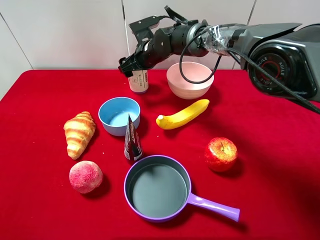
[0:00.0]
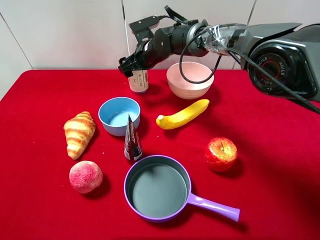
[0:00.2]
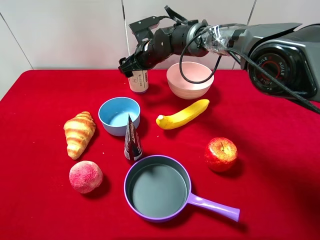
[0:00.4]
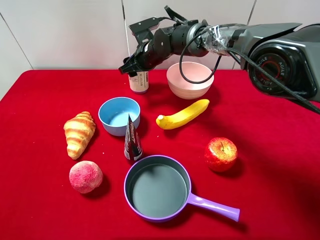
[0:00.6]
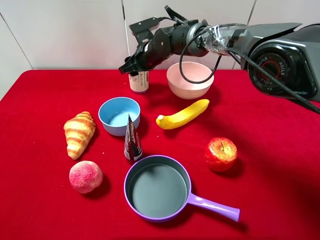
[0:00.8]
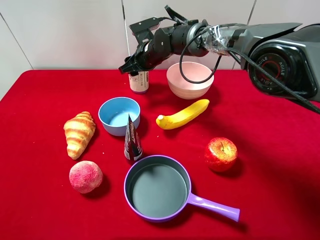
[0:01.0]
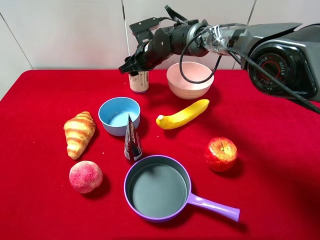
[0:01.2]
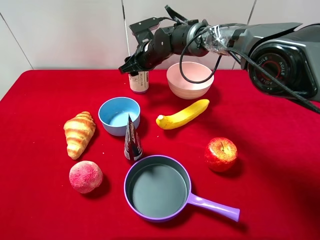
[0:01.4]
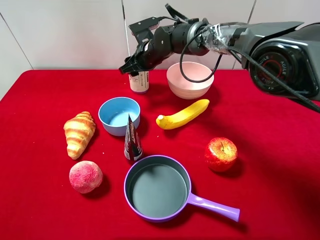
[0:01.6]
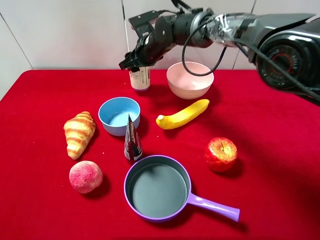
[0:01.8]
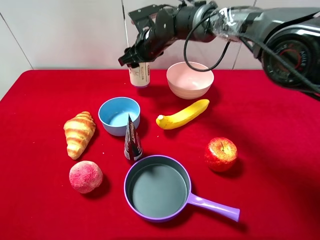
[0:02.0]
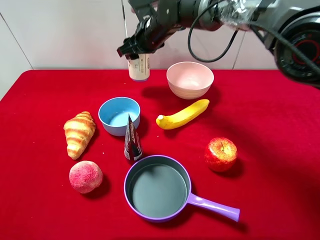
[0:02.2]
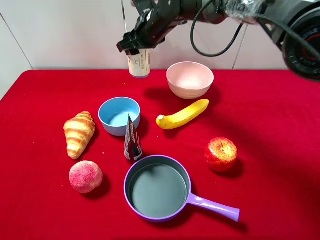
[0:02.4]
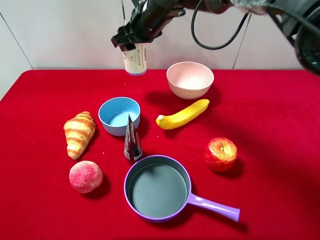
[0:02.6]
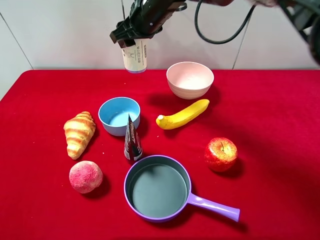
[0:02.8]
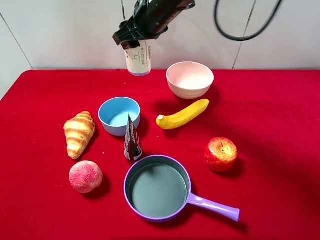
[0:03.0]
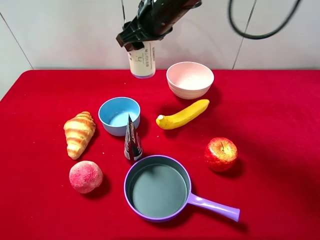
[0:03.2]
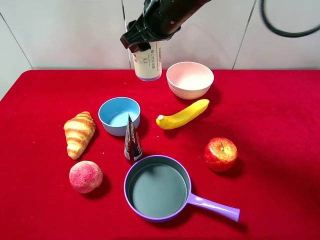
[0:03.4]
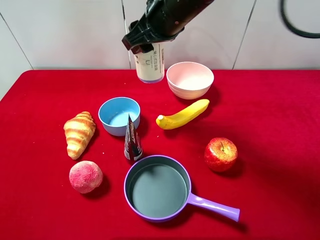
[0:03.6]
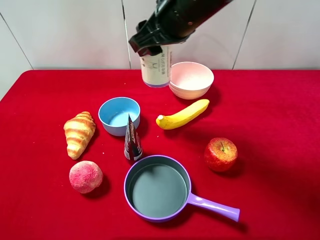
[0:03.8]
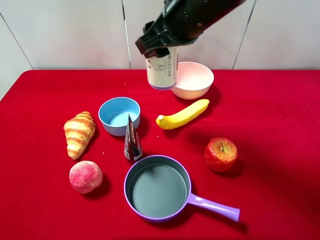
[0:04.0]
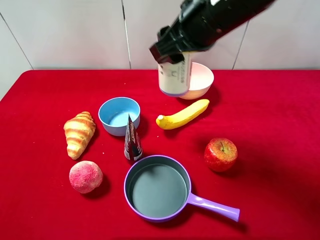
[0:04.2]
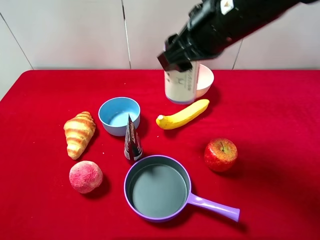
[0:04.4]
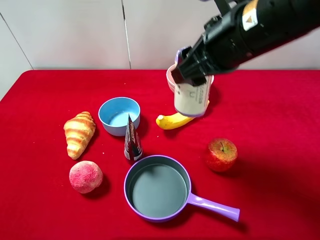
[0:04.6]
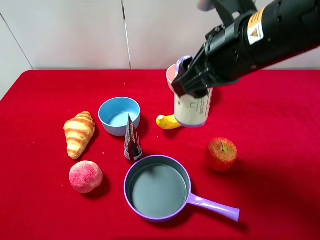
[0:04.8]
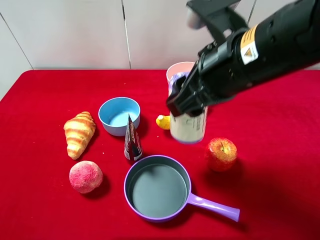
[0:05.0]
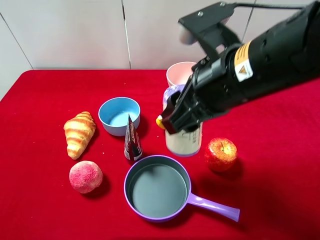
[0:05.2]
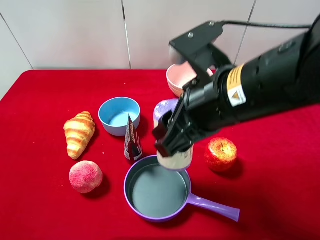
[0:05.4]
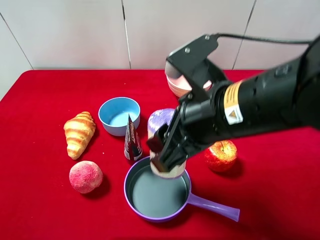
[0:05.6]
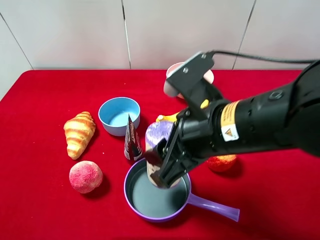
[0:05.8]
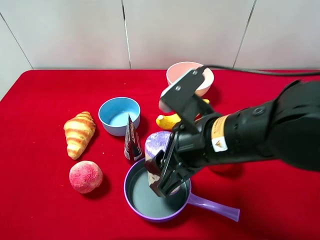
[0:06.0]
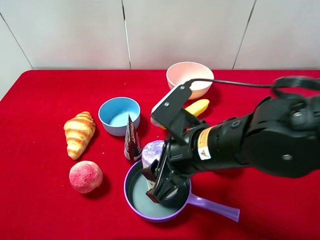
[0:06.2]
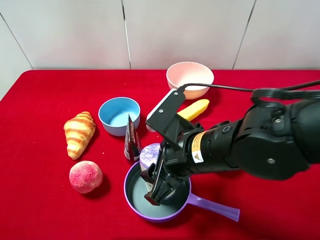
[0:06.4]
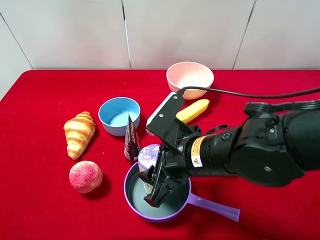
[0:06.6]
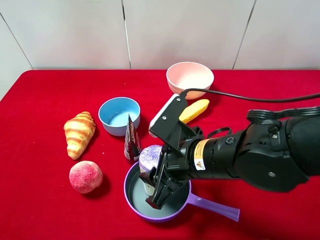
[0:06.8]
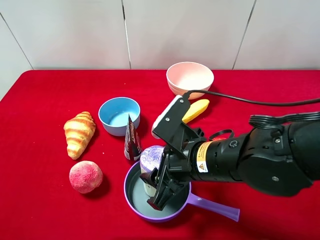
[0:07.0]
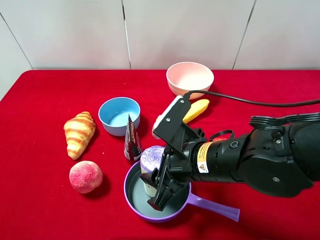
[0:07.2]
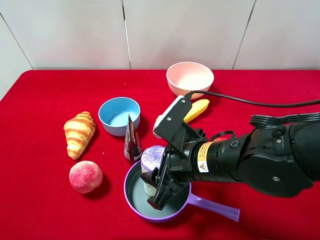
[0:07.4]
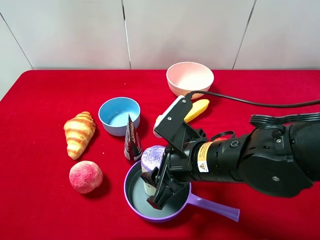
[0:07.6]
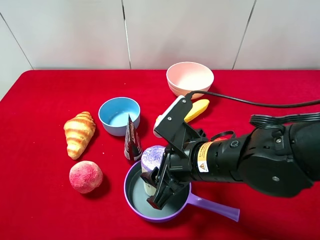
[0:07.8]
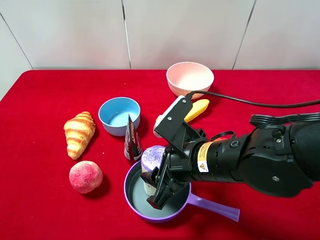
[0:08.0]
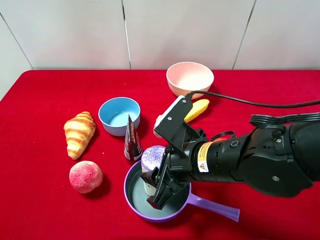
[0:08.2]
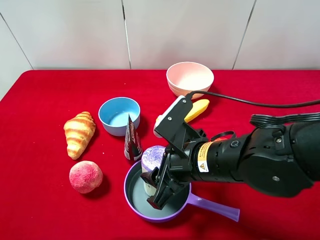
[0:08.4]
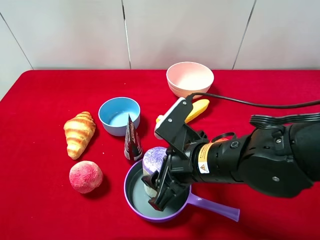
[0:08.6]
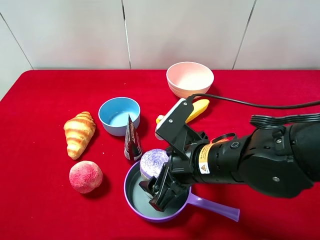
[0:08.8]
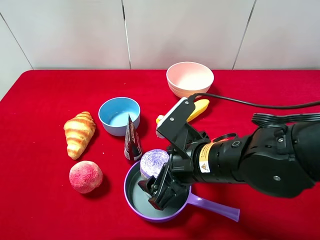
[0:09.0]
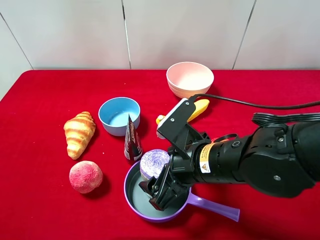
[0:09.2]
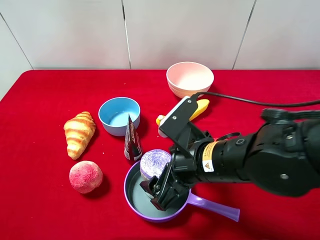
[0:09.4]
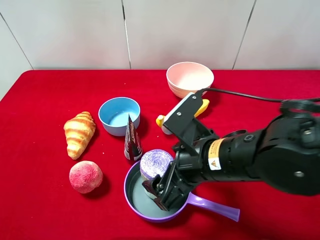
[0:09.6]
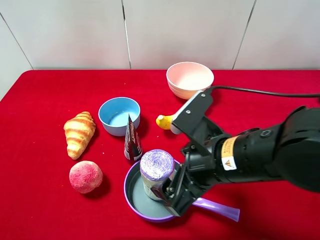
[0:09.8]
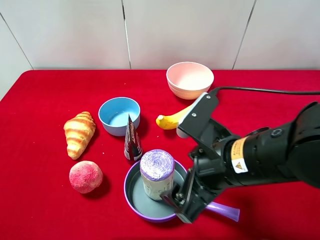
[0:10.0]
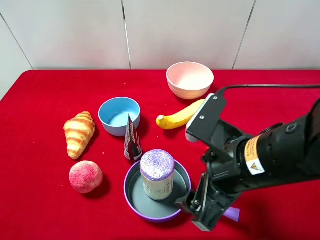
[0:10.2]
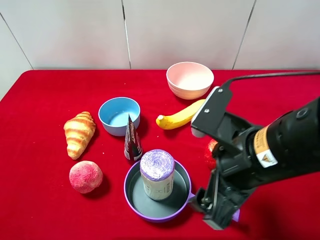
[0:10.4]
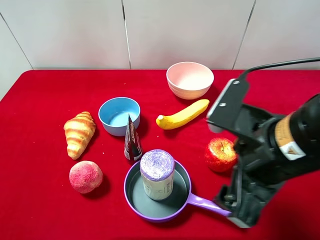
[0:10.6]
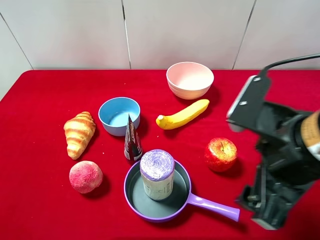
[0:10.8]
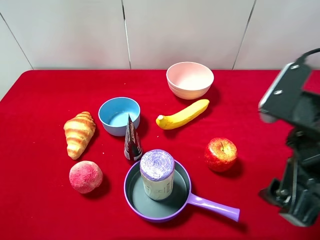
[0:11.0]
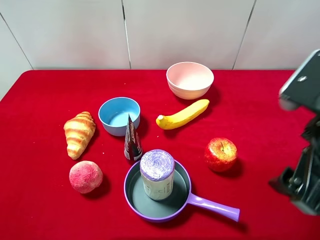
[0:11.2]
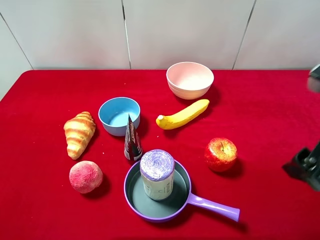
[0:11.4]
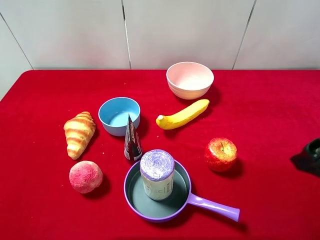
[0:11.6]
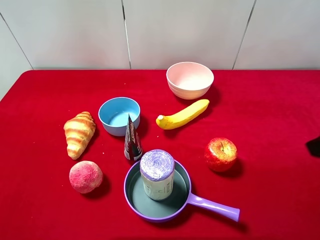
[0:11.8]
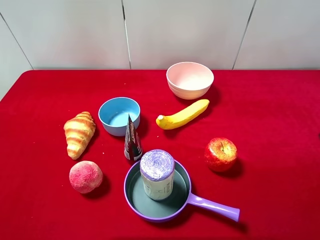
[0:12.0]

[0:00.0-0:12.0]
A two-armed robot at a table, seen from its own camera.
Task of the whole recording: pick up an item with a gripper and place it in a random container on the desktop.
0:00.0 to 0:01.6: The right gripper closes up.
0:01.6 to 0:03.0: The right gripper travels upward and backward by about 15 cm.
0:03.0 to 0:04.4: The right gripper travels backward and to the right by approximately 15 cm.
0:04.4 to 0:06.0: The right gripper shifts roughly 15 cm downward and backward.
0:06.0 to 0:07.6: The right gripper shifts roughly 5 cm downward.
0:07.6 to 0:09.0: The right gripper opens.
0:09.0 to 0:10.4: The right gripper moves upward and to the right, roughly 10 cm.
0:10.4 to 0:12.0: The right gripper is displaced to the right and upward by some 15 cm.

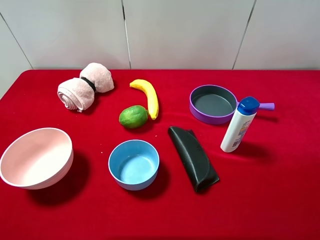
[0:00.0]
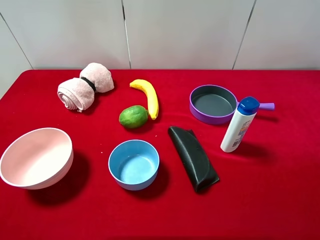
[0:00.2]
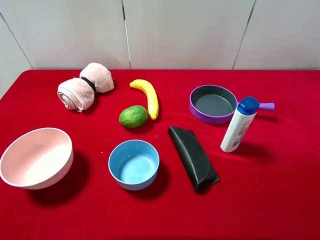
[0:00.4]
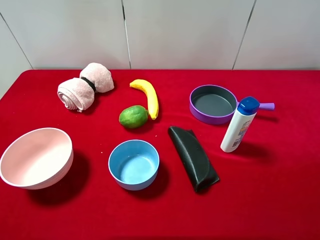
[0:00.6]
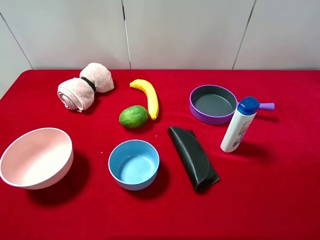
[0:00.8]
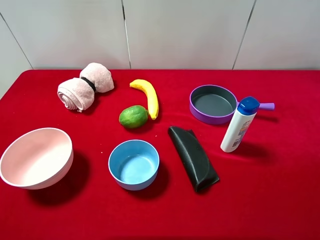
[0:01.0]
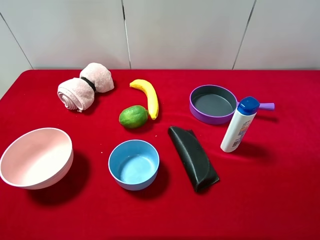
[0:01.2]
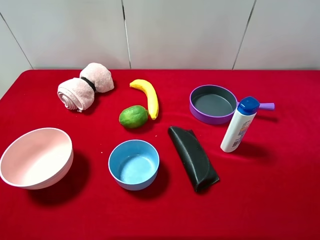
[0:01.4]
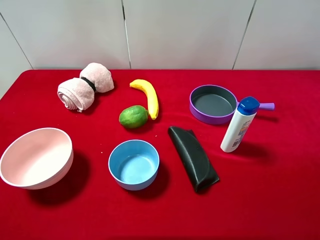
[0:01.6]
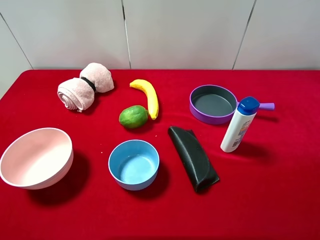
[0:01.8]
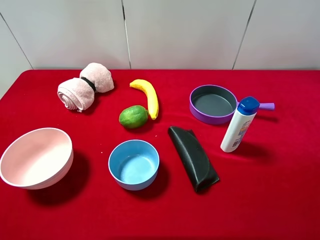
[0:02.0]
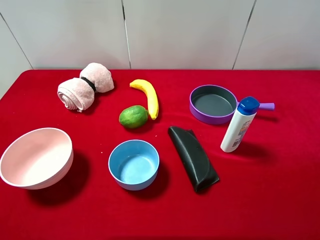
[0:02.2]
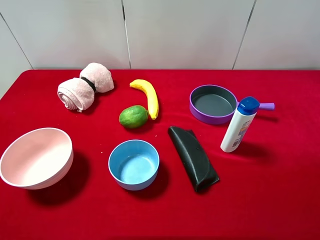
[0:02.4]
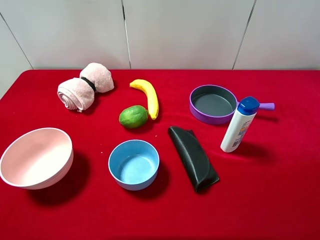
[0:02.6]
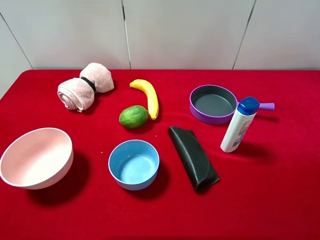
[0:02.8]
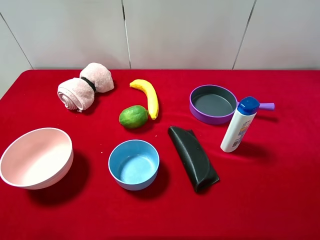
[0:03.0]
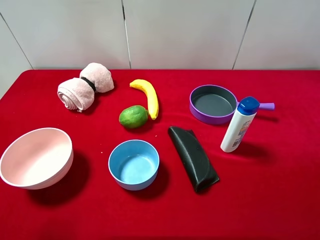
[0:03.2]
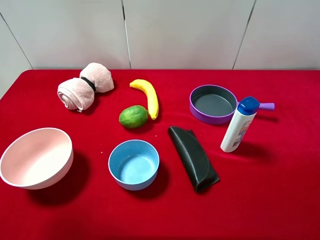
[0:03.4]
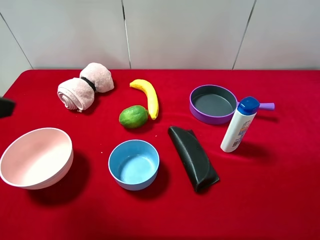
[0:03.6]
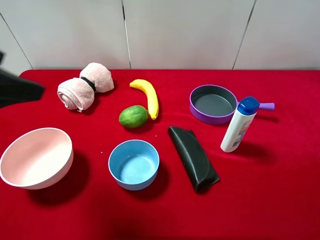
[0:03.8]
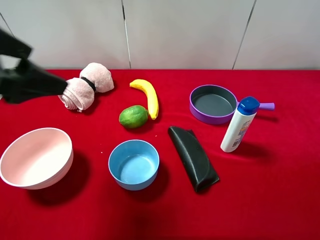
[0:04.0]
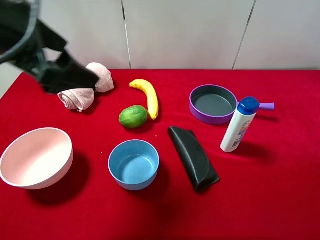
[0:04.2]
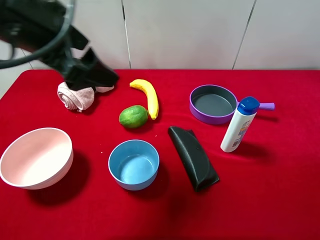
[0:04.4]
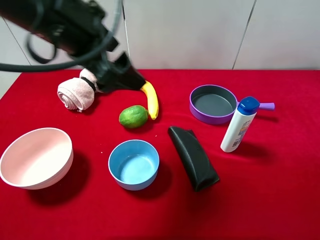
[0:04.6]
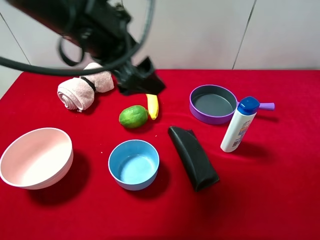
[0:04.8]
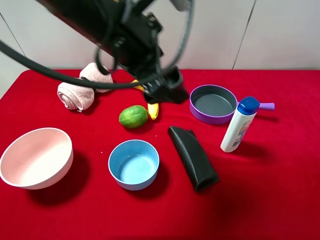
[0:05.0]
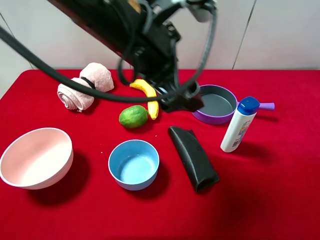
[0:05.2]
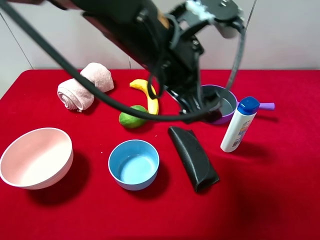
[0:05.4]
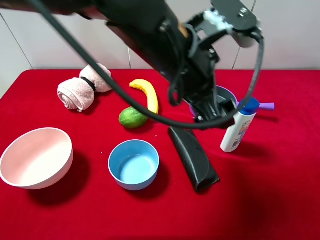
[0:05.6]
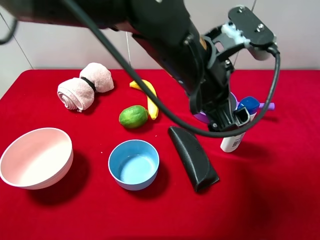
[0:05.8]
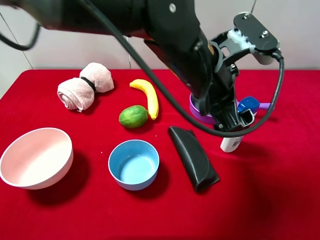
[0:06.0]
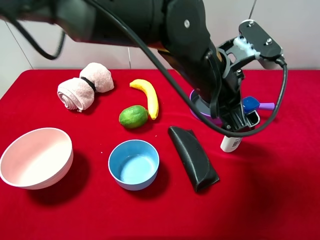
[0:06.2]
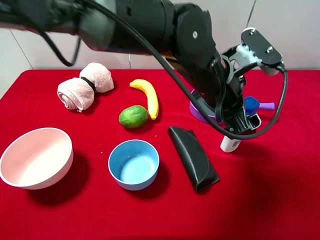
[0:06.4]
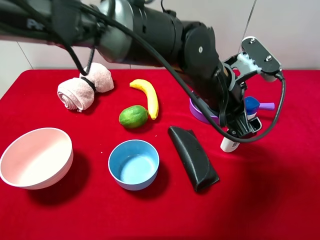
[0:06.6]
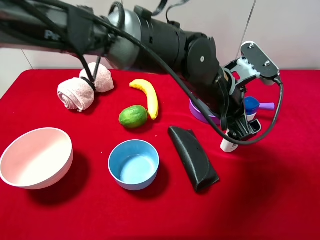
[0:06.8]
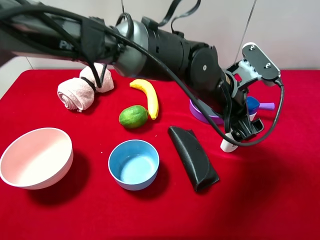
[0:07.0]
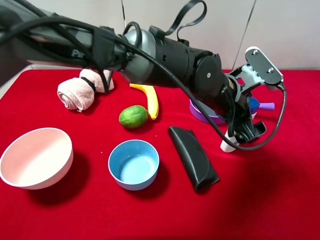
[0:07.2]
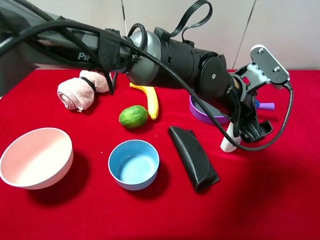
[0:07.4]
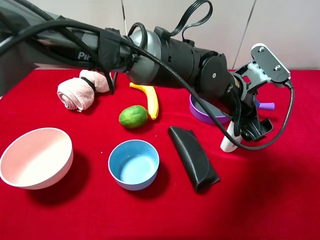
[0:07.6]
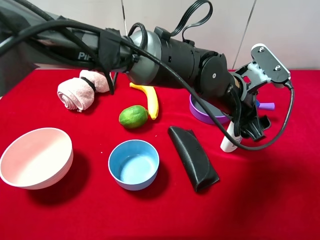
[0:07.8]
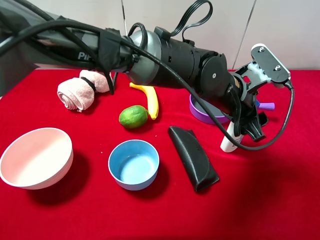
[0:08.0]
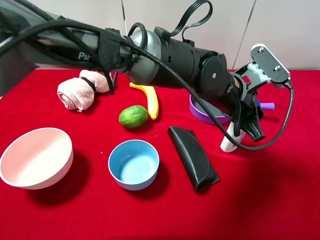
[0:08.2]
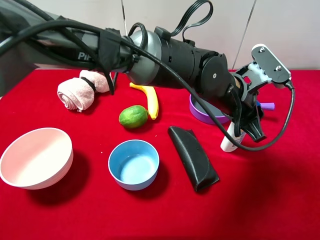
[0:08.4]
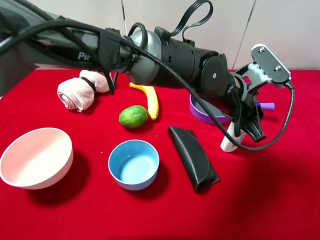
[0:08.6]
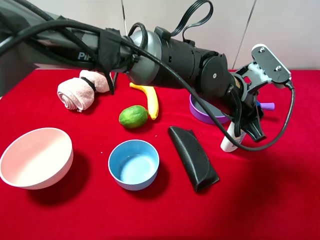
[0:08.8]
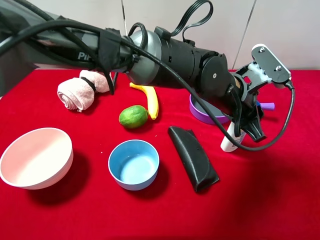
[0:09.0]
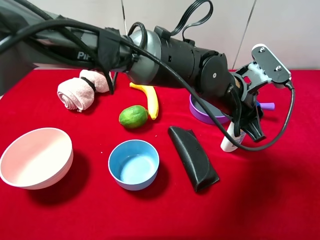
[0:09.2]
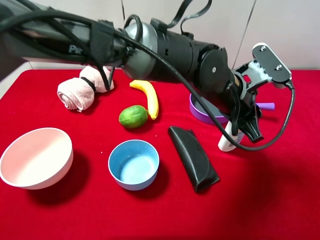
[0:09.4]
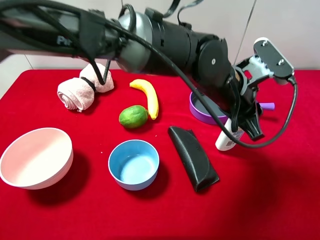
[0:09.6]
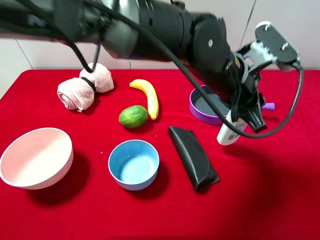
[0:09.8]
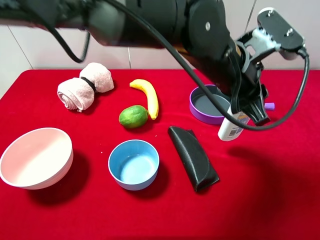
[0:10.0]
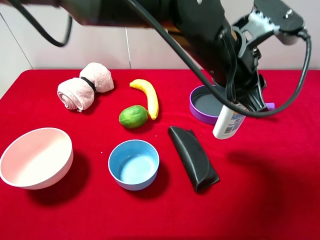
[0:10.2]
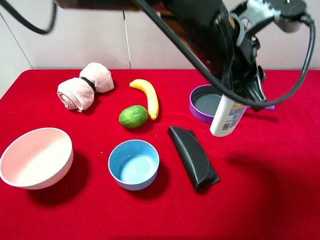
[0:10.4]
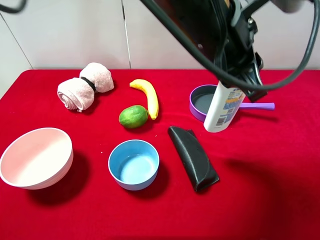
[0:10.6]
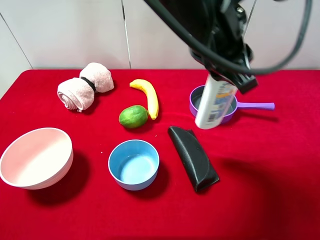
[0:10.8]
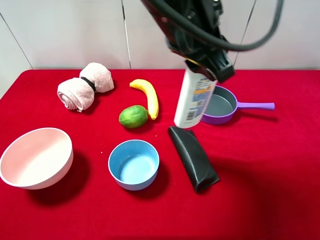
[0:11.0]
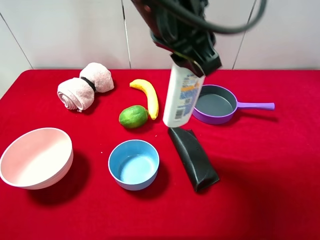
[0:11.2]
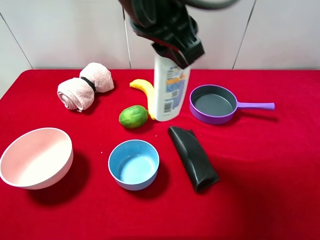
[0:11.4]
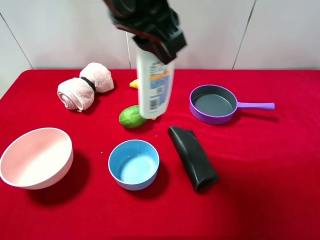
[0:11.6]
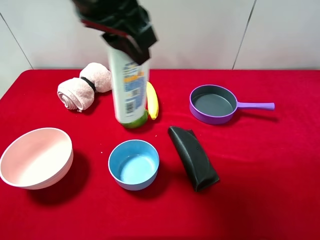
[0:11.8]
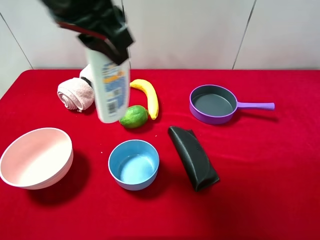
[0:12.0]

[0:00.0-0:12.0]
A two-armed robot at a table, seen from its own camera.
Task of the whole recording: pick up an item with a gripper and place it in a random container on the desktop.
0:00.0 to 0:01.6: Both grippers stay put.
0:03.0 to 0:04.4: The left gripper heads forward and to the right, covering approximately 25 cm.
0:04.4 to 0:06.0: The left gripper moves to the right, some 20 cm.
0:06.0 to 0:07.6: The left gripper travels downward and to the right by approximately 10 cm.
0:09.0 to 0:10.4: The left gripper goes approximately 10 cm upward.
0:10.4 to 0:12.0: The left gripper moves to the left and upward, about 20 cm.
